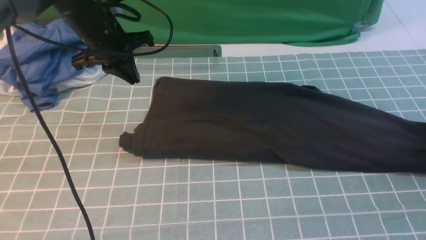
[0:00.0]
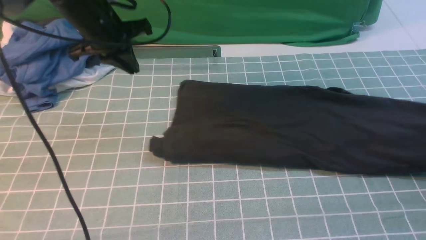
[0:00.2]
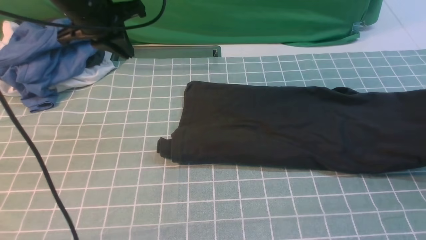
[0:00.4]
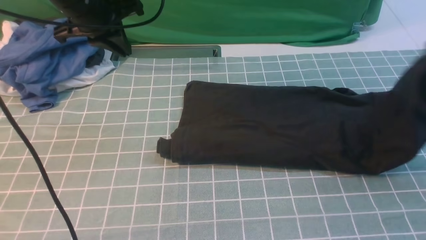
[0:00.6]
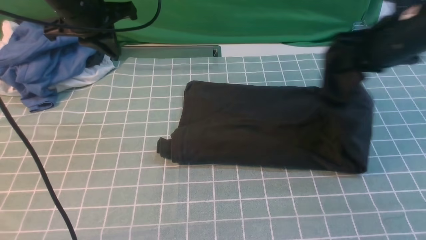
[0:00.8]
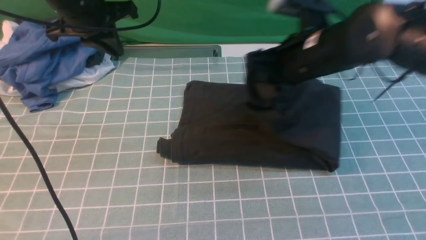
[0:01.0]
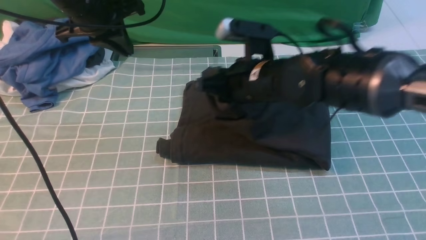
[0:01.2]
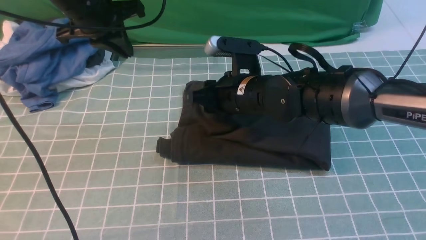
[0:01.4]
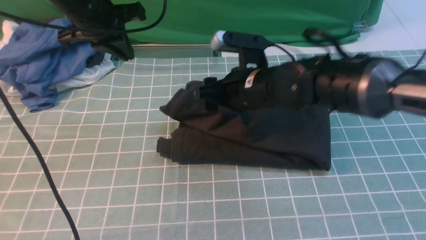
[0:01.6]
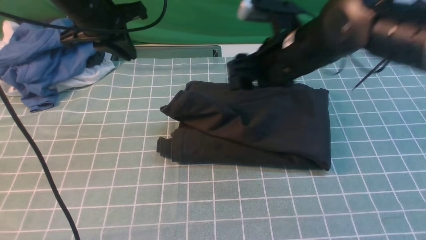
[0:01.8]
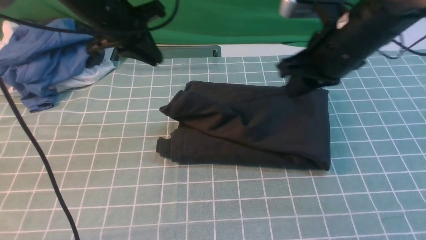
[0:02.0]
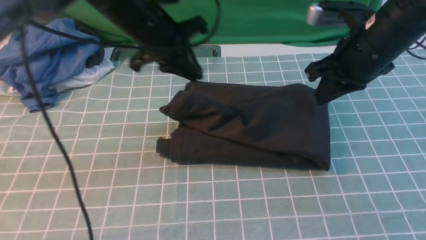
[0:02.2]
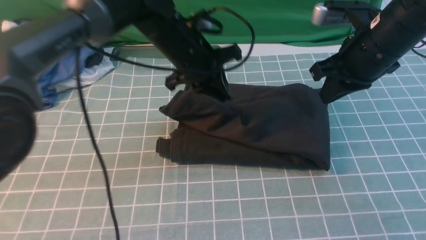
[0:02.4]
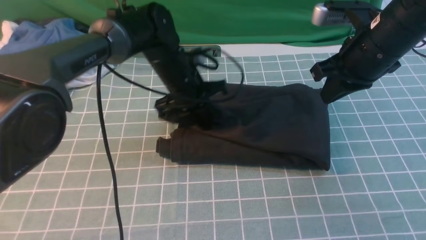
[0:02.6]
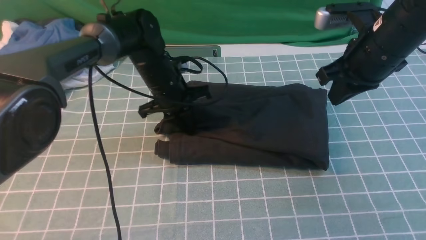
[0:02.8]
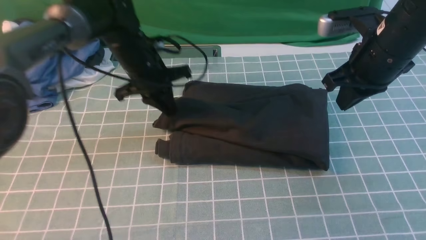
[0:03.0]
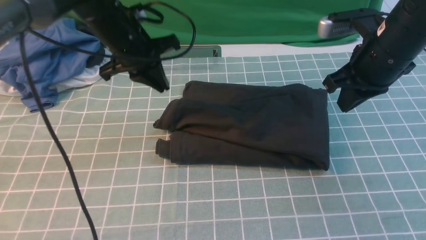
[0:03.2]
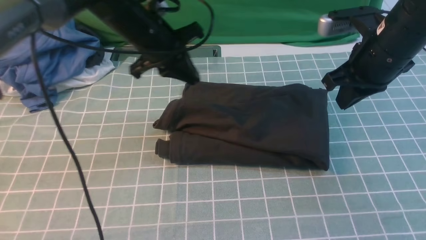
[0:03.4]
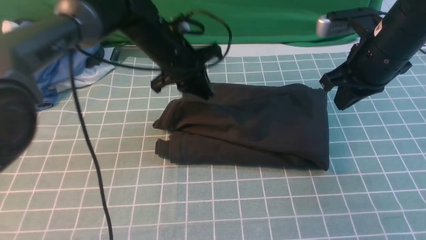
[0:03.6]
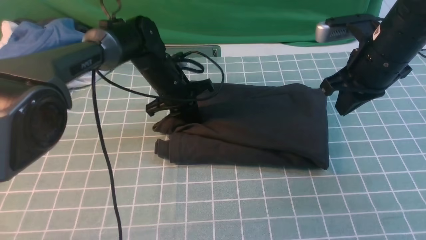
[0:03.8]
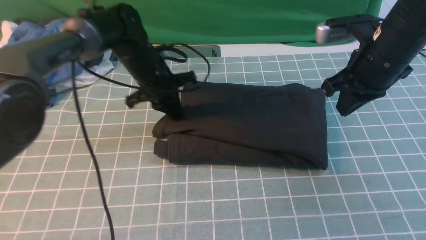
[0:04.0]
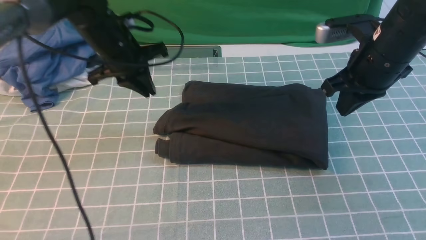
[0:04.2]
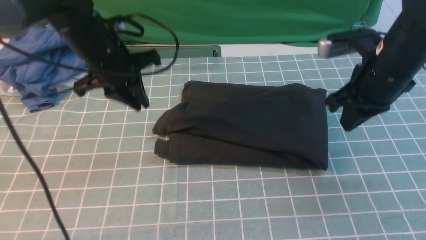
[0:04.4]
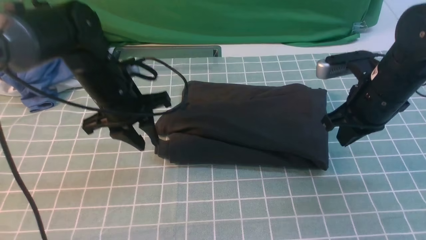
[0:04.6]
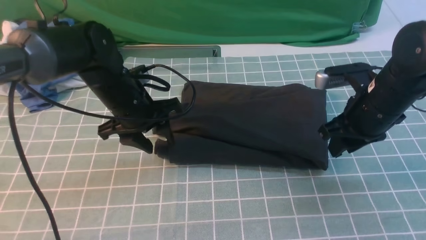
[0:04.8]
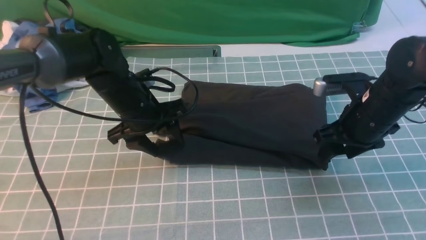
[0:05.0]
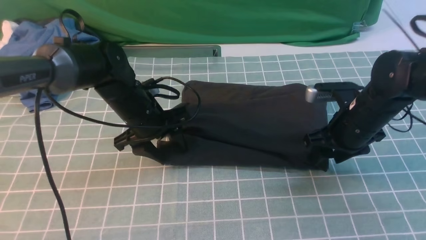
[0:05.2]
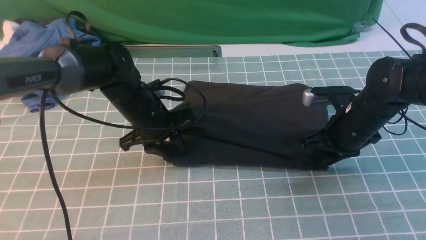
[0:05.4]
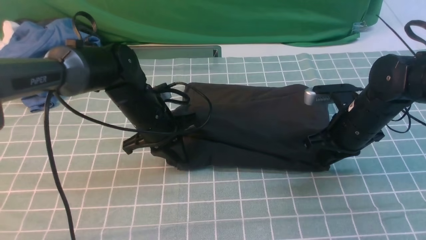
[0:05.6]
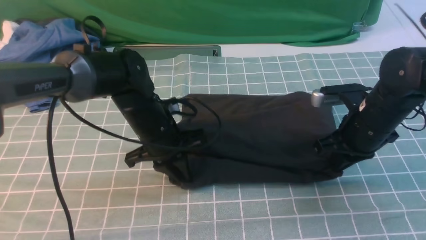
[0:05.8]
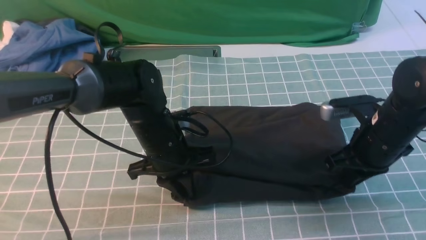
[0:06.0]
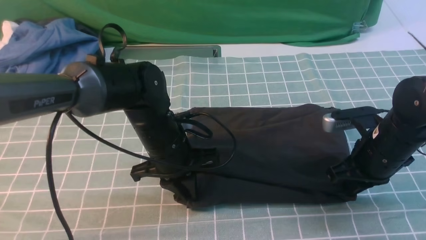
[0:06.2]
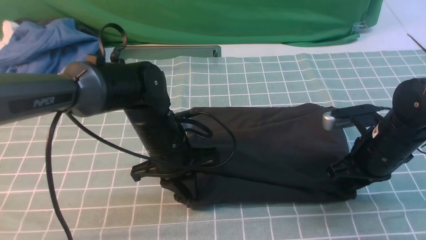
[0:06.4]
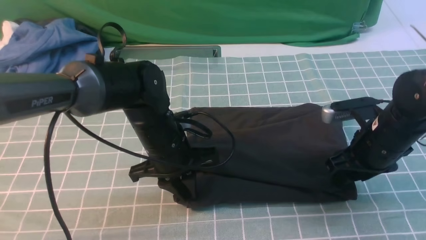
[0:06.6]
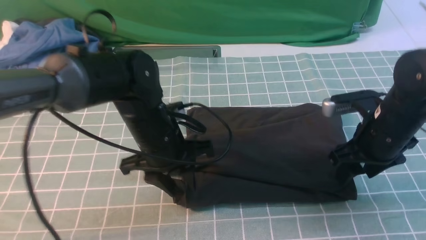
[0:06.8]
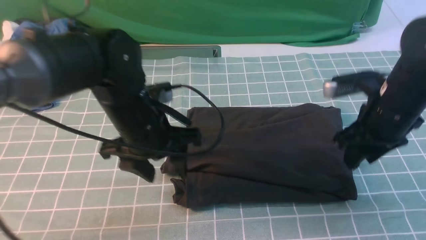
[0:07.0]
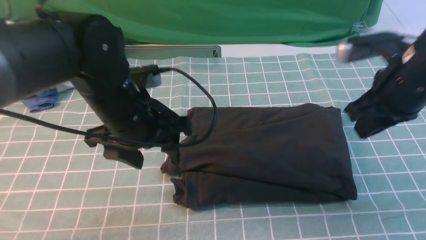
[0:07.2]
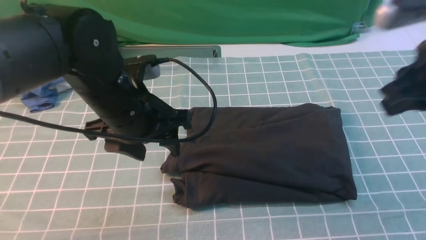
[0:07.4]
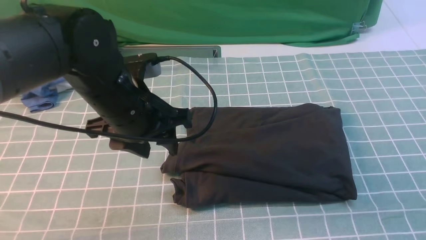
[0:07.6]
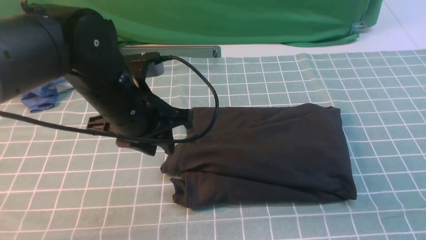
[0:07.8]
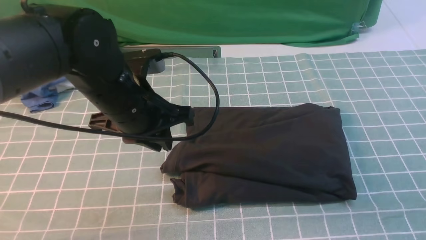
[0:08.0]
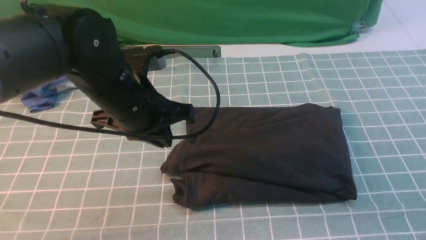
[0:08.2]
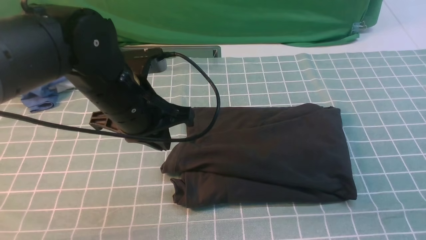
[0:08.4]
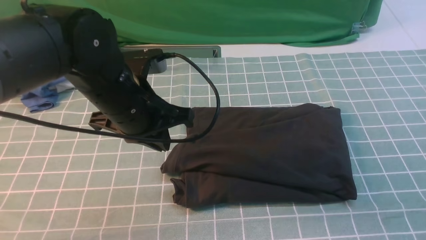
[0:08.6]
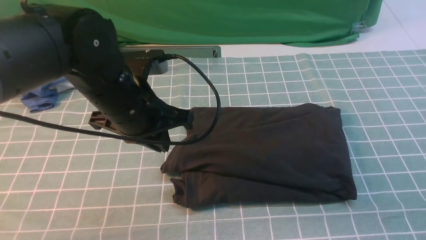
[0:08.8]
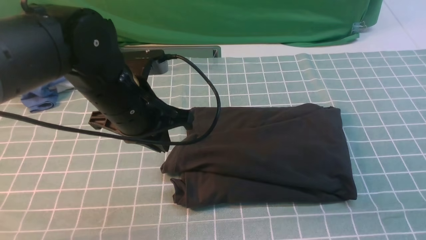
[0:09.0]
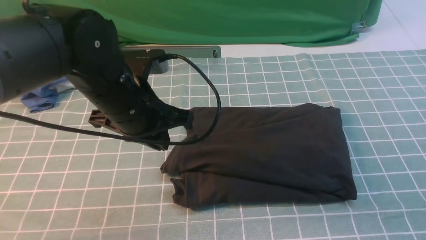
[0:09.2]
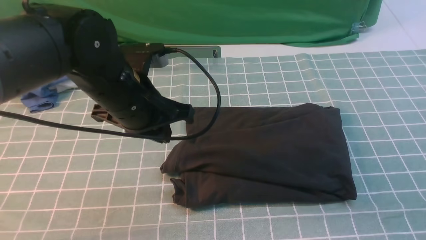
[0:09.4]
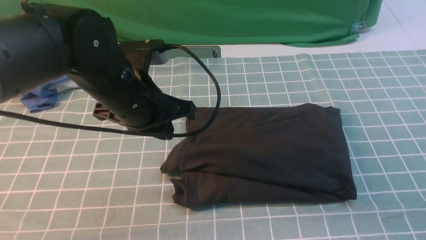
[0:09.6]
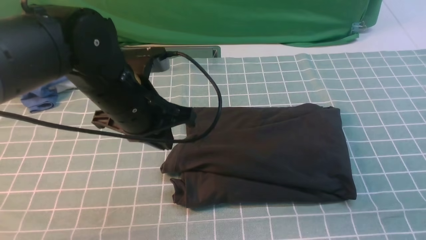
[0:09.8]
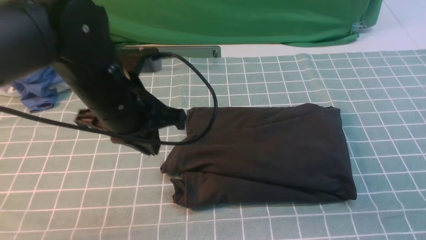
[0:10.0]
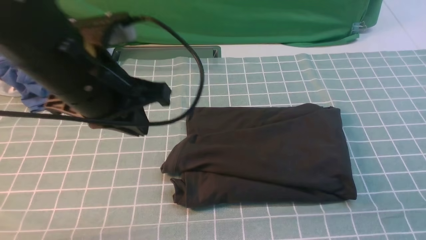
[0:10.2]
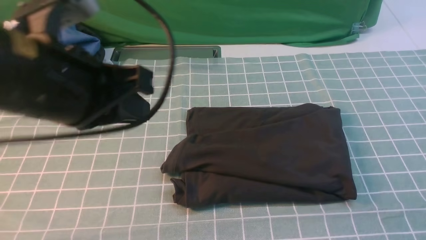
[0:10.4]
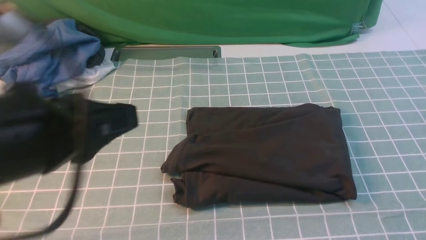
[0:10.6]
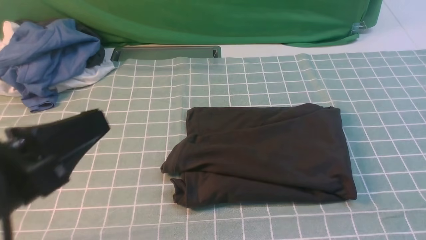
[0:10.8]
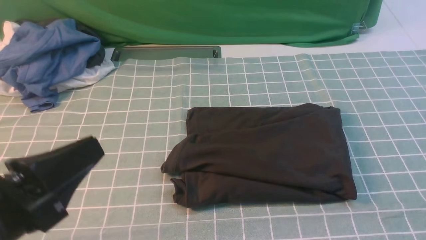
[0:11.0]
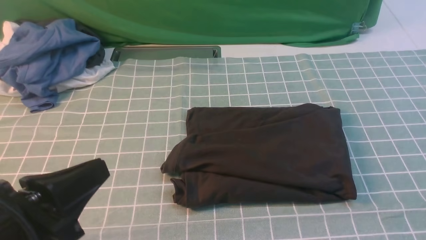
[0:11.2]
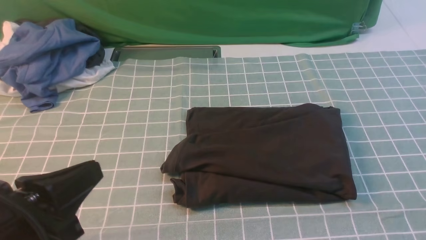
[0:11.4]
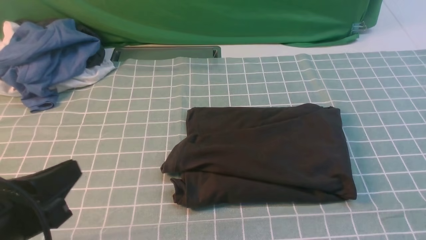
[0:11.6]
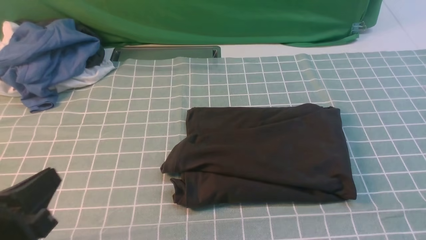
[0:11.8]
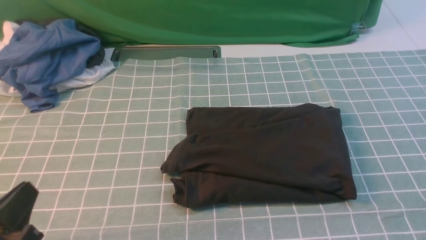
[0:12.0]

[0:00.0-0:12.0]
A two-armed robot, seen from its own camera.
Step, 0:00.0 to 0:01.8: use the right arm to drag the right edge of the fabric to the left and folds it over the left edge.
0:00.0 to 0:01.6: The right gripper goes about 40 cm to the left, and opens its fingers.
0:01.6 to 0:03.0: The right gripper goes approximately 15 cm to the right, and closes, while the left gripper moves downward and to the right, about 10 cm.
0:03.0 to 0:04.4: The left gripper shifts by approximately 5 cm.
0:04.4 to 0:06.0: The left gripper is displaced downward, to the right and backward by roughly 15 cm, and opens, then closes again. The right gripper heads downward, covering roughly 10 cm, and opens, then closes once more.
0:06.0 to 0:07.6: The right gripper moves upward and backward, approximately 25 cm, and opens, then closes once more, while the left gripper is displaced upward by some 10 cm, and opens up.
0:07.6 to 0:09.0: The left gripper closes up. Meanwhile the right gripper moves downward and backward, approximately 15 cm.
0:09.0 to 0:10.4: The left gripper moves backward and upward, about 15 cm. The right gripper shifts approximately 10 cm downward.
0:10.4 to 0:12.0: The left gripper shifts some 20 cm downward, backward and to the left.

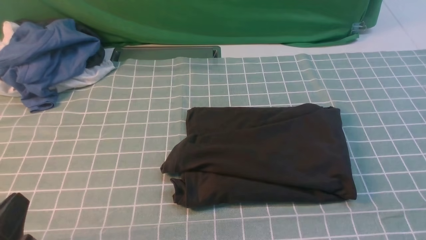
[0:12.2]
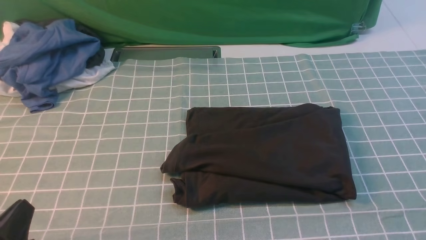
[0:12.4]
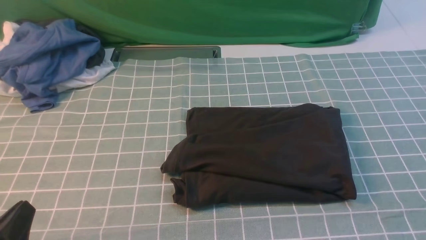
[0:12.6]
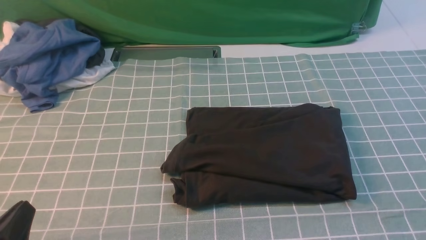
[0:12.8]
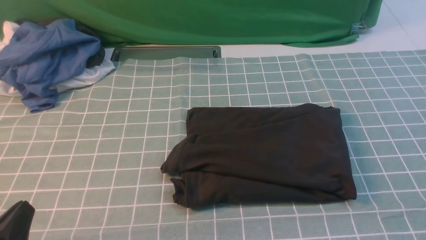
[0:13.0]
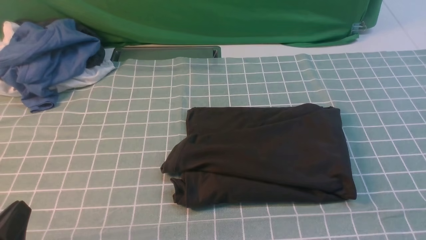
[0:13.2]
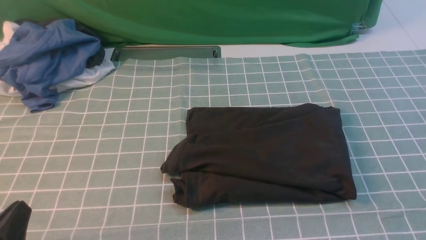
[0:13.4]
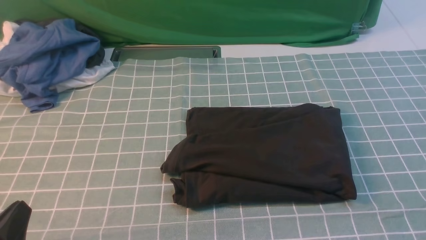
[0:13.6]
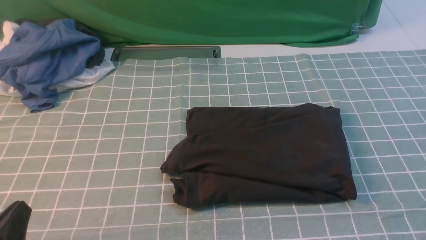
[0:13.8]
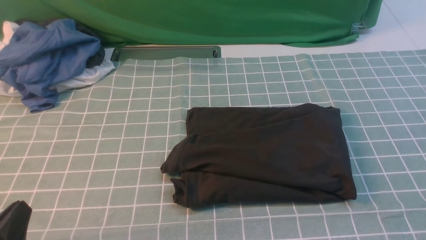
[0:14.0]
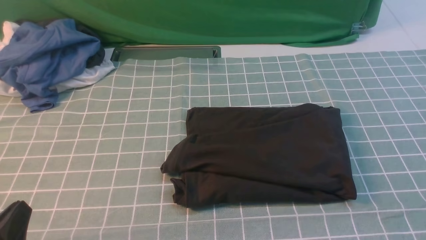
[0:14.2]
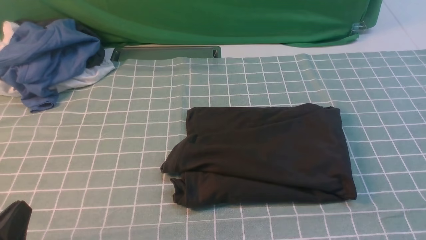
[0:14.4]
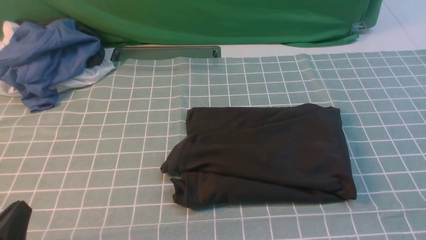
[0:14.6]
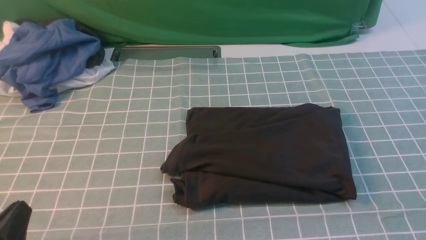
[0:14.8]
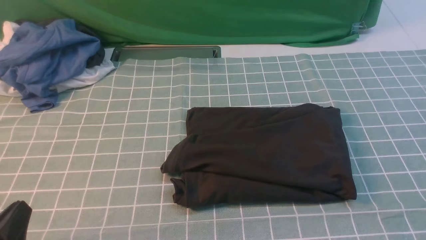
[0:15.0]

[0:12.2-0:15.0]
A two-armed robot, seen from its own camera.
0:12.2 to 0:13.6: The two grippers keep their place.
0:13.6 to 0:15.0: Both grippers stay about where they are.
